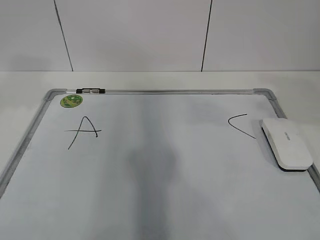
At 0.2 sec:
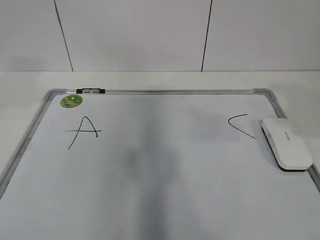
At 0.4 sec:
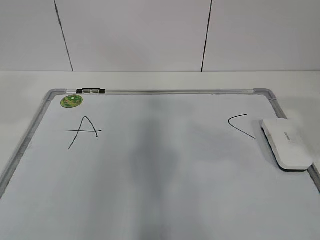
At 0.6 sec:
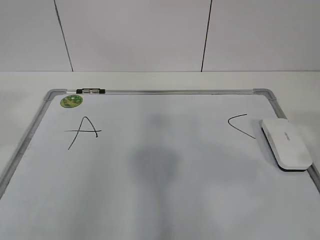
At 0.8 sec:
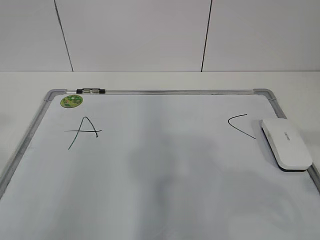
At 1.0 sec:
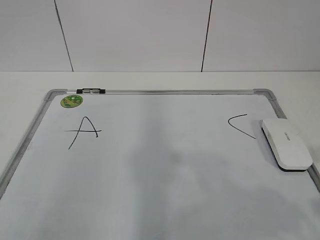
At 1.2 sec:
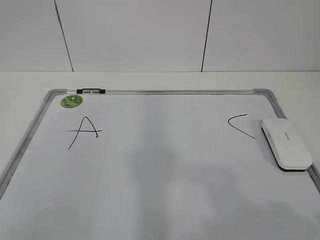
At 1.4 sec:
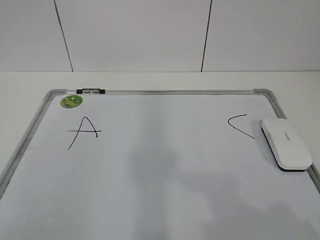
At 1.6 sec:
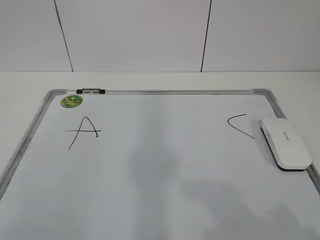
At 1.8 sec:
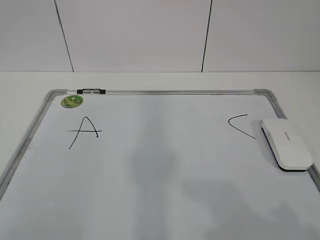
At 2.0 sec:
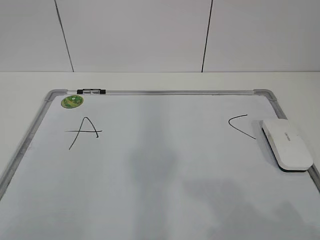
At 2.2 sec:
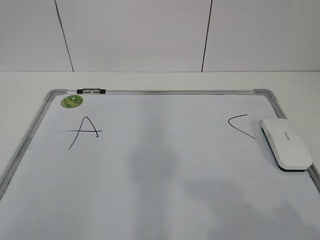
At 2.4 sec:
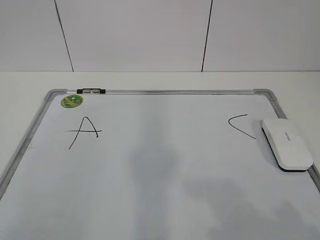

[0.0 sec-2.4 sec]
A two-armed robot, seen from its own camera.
Task of the whole recording: pick up the eraser on the blackboard and erase the letter "B".
0.0 sec to 1.2 sec: The left gripper shifts about 25 cm backward; the right gripper goes some 20 cm backward and downward.

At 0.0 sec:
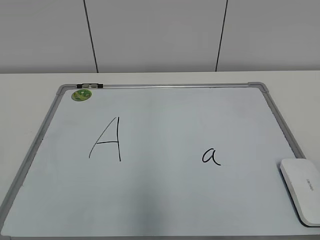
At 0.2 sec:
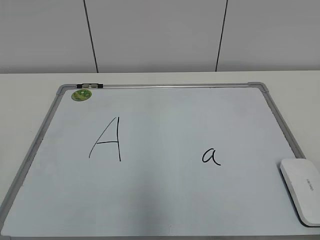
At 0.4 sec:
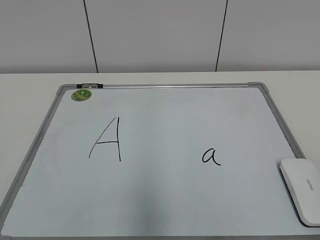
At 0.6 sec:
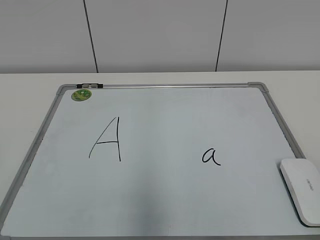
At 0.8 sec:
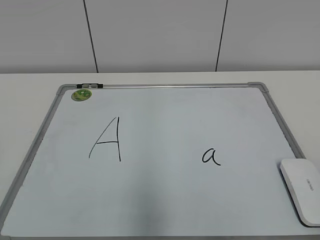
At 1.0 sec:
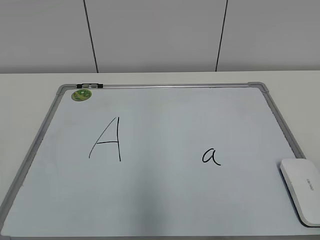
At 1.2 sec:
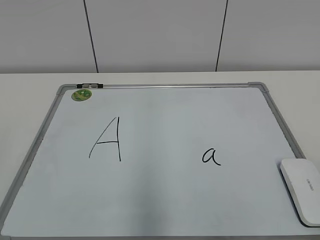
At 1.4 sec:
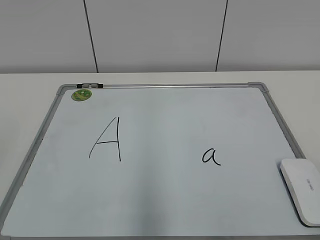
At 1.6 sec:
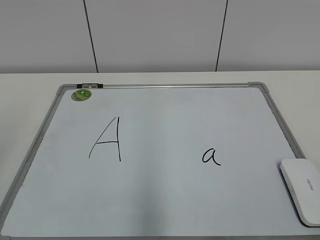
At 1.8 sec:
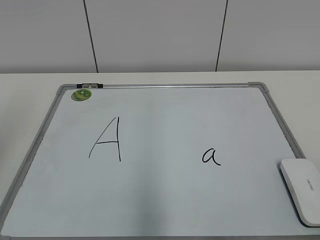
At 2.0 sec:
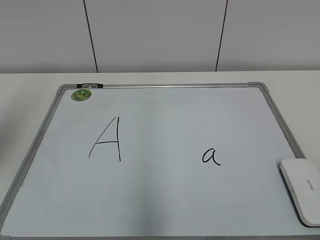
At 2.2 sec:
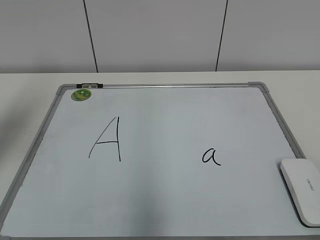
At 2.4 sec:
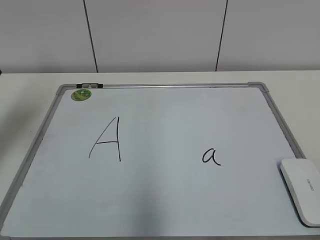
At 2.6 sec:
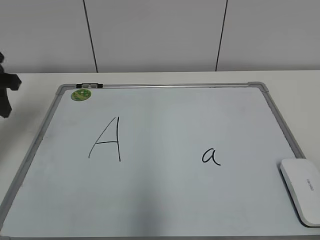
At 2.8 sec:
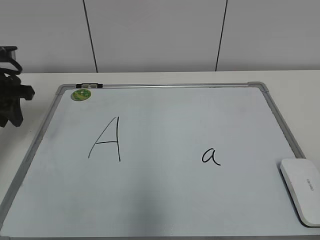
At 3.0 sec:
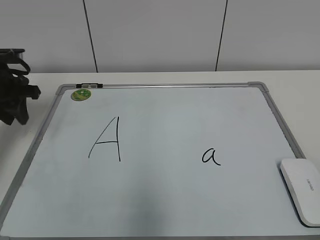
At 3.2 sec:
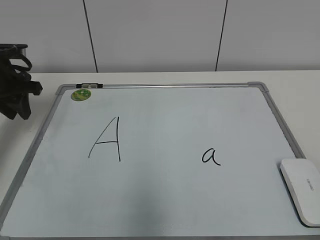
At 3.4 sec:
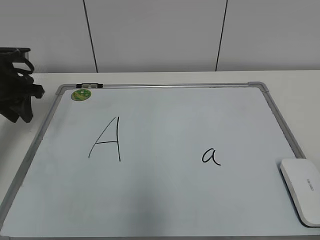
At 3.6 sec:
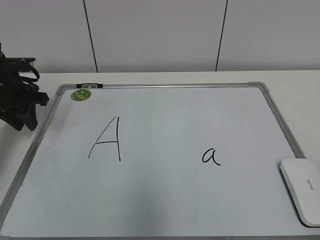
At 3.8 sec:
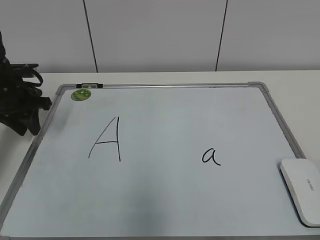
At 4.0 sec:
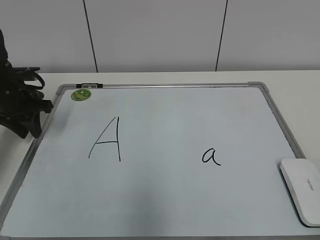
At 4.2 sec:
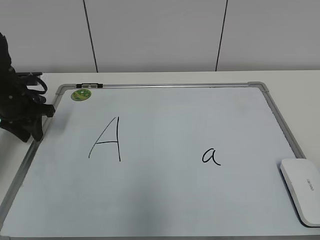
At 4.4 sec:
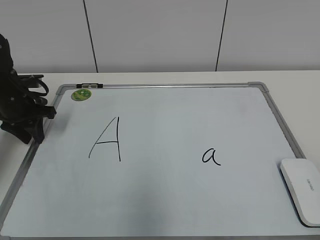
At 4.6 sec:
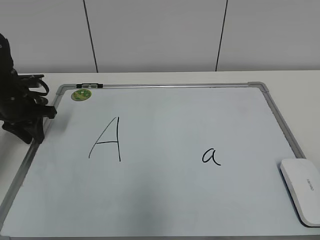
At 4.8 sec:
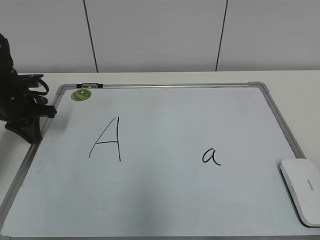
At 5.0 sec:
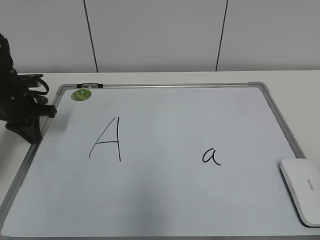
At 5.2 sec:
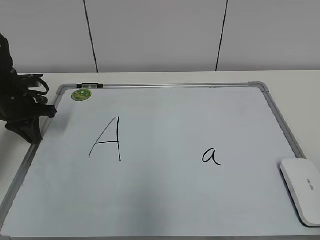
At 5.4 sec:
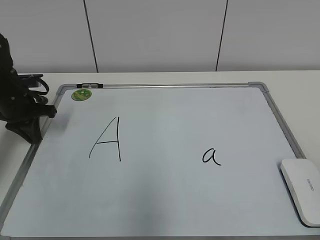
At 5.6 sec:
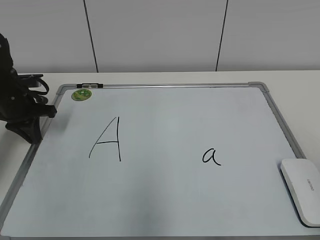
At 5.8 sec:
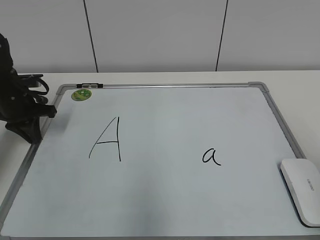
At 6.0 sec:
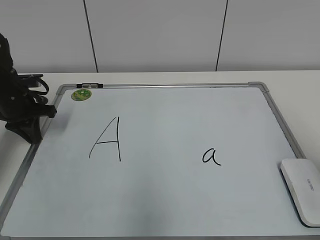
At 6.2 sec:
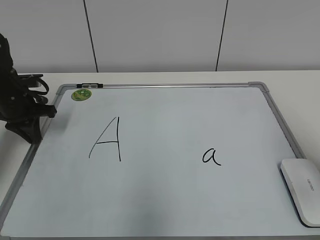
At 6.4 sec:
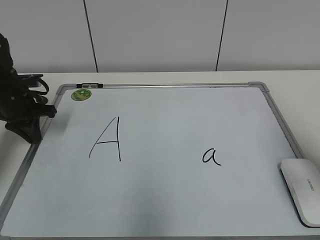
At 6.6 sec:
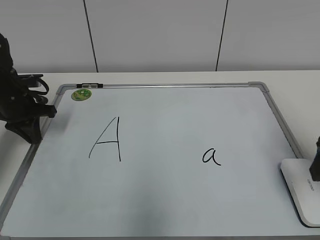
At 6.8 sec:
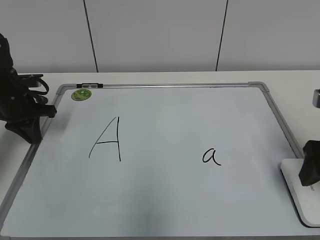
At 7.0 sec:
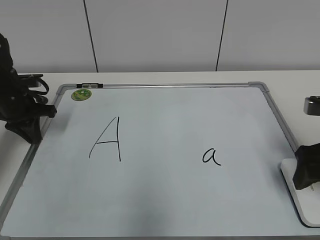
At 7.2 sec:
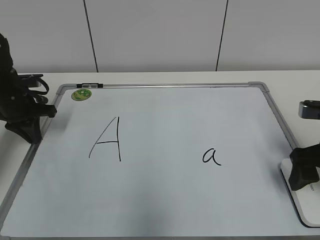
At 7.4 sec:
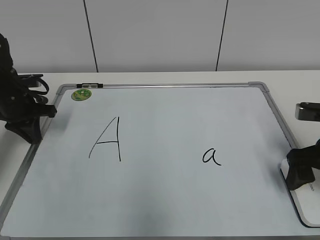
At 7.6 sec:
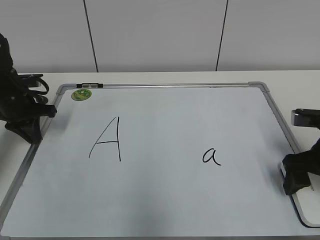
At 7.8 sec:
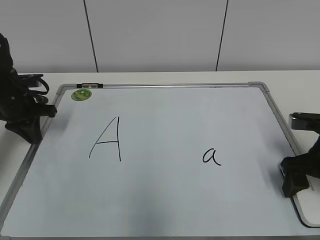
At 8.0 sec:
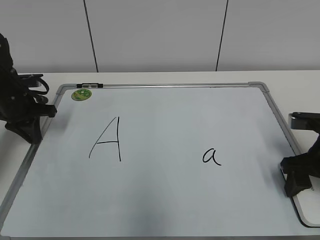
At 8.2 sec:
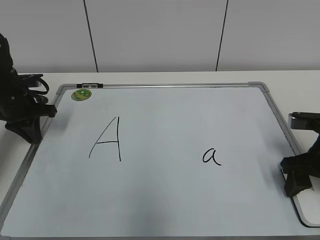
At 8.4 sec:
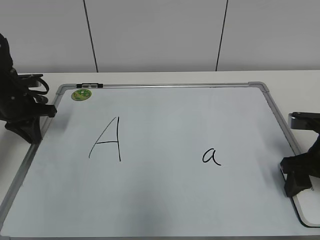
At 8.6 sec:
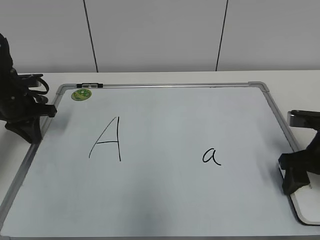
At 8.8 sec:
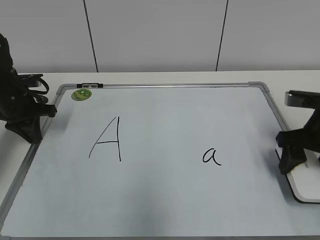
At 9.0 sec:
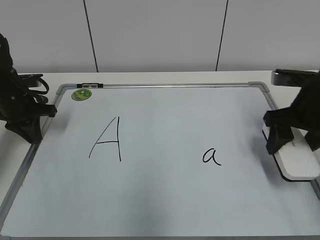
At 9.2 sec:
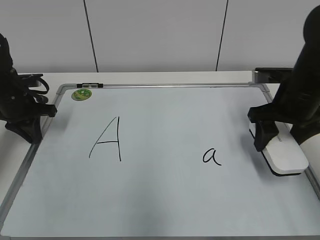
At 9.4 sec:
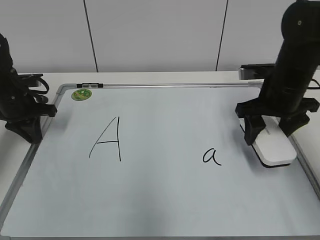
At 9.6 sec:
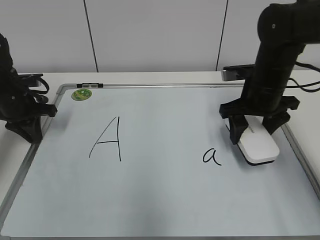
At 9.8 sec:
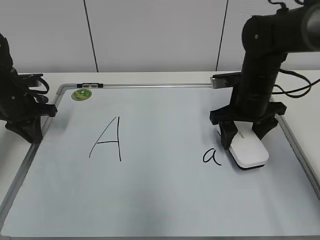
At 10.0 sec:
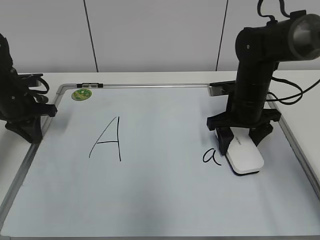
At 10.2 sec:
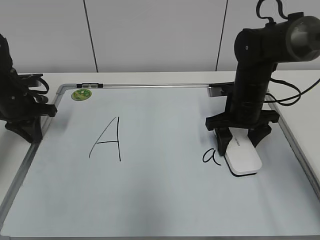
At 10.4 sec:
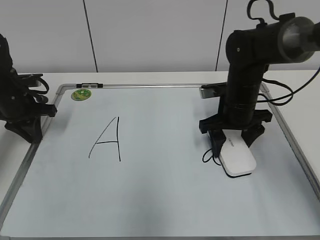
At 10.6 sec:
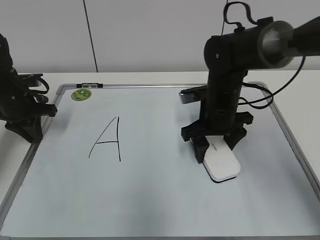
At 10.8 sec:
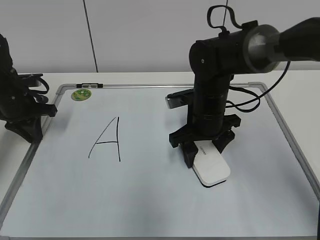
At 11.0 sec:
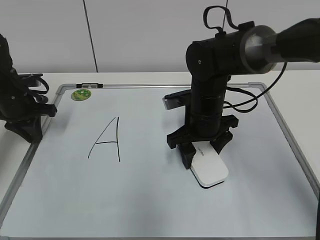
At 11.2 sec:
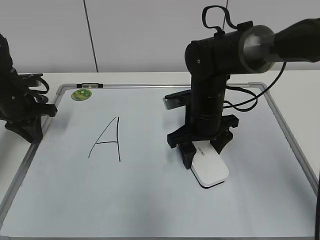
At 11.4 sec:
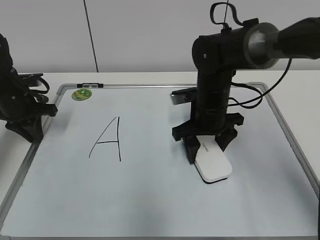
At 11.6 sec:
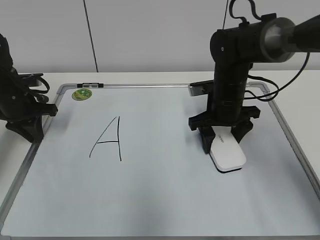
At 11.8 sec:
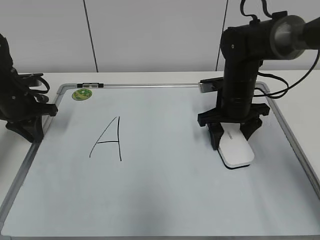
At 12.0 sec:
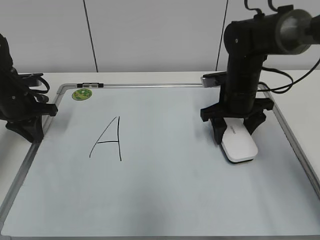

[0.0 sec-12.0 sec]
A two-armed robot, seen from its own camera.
Task of the whole recording: pick up the eraser on the blackboard and erase the letter "a".
Step, 0.0 sec to 4.6 sec: Hold the drawing board steady with your left hand.
Step, 4.8 sec to 7.4 sec: Grab the eraser with your right hand.
Step, 7.6 sec to 11.8 sec: Erase the letter a with your right hand.
1.6 sec to 3.0 sec: The left gripper is displaced forward and downward by approximately 30 cm.
3.0 sec to 4.4 sec: The left gripper shifts about 5 cm downward.
4.4 sec to 6.0 sec: The left gripper closes up.
6.0 sec to 7.6 sec: The right gripper goes some 20 cm forward and downward, and opens.
7.6 sec to 9.0 sec: The right gripper travels forward by approximately 5 cm, and closes up.
9.0 sec to 10.4 sec: The right gripper moves to the left, forward and downward, about 15 cm.
10.4 sec to 12.0 sec: The right gripper reaches some 5 cm to the left, then returns.

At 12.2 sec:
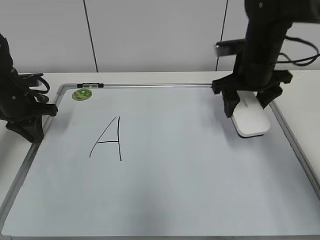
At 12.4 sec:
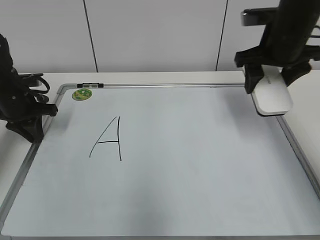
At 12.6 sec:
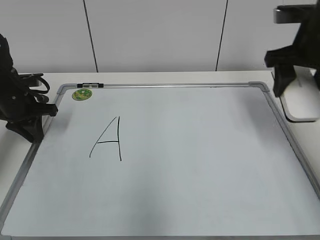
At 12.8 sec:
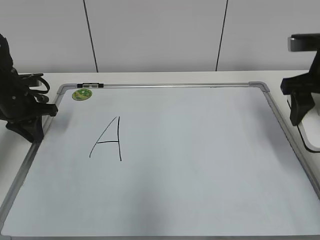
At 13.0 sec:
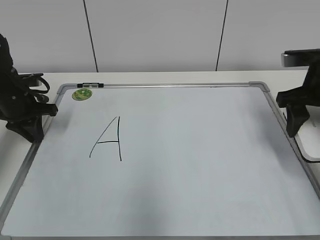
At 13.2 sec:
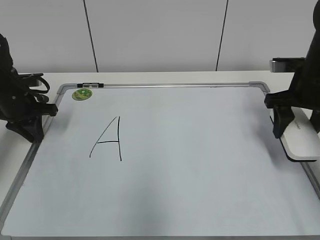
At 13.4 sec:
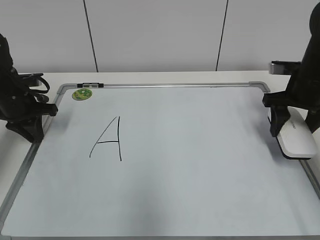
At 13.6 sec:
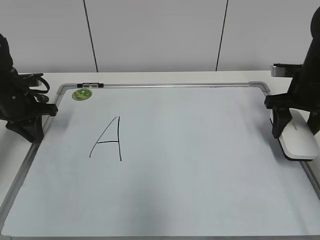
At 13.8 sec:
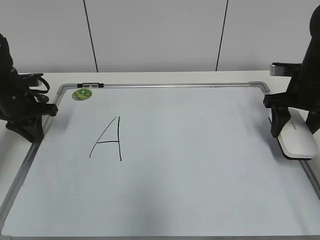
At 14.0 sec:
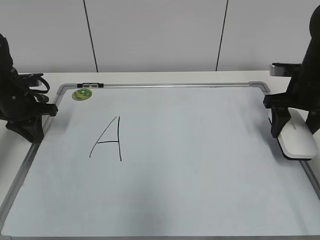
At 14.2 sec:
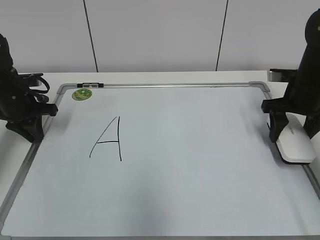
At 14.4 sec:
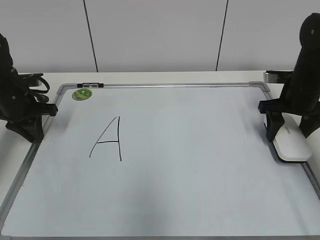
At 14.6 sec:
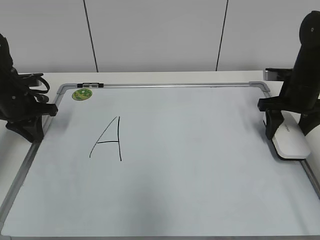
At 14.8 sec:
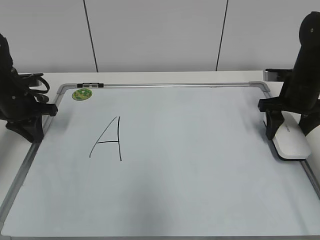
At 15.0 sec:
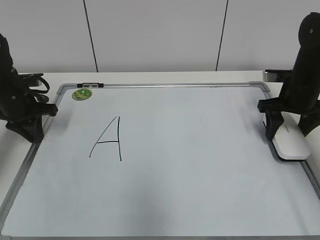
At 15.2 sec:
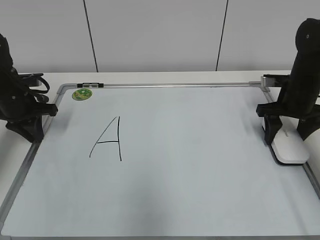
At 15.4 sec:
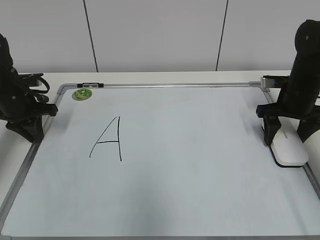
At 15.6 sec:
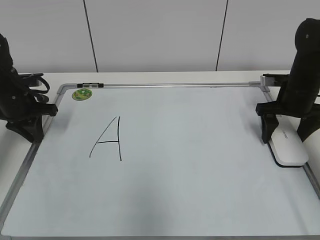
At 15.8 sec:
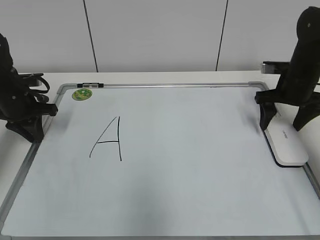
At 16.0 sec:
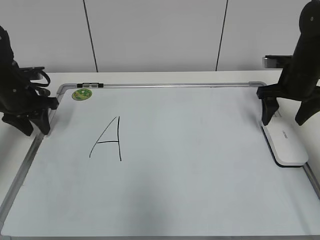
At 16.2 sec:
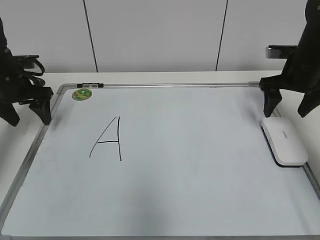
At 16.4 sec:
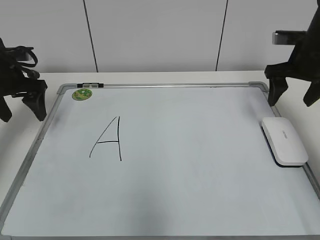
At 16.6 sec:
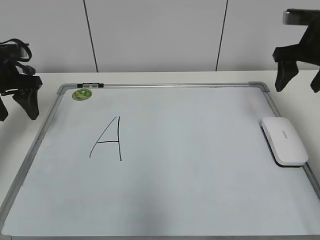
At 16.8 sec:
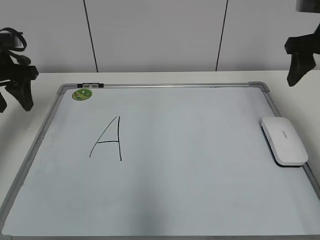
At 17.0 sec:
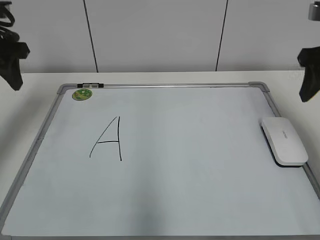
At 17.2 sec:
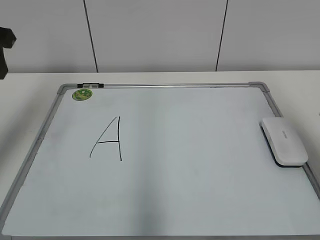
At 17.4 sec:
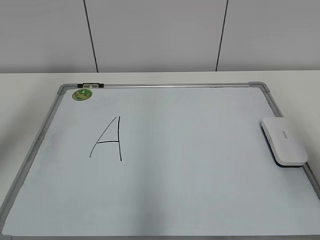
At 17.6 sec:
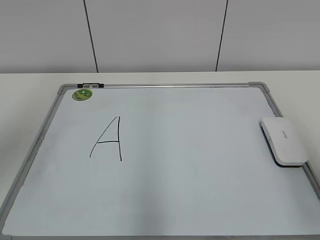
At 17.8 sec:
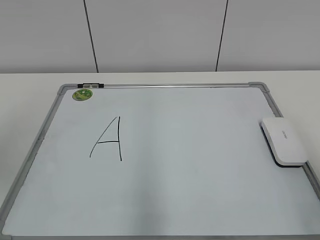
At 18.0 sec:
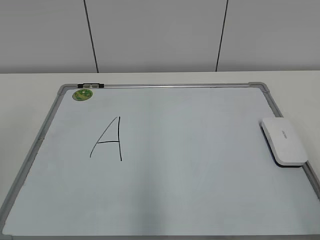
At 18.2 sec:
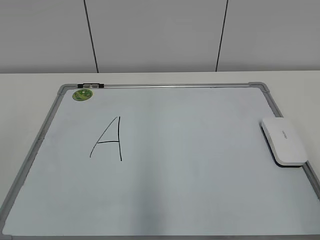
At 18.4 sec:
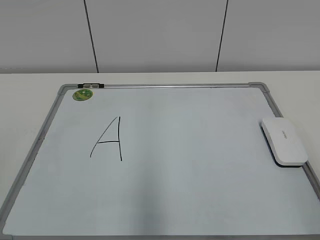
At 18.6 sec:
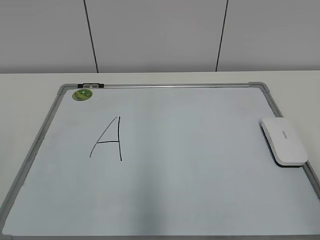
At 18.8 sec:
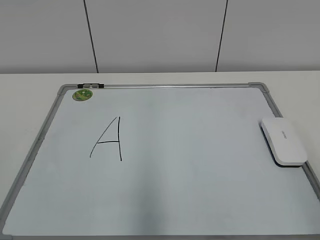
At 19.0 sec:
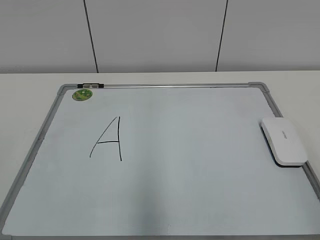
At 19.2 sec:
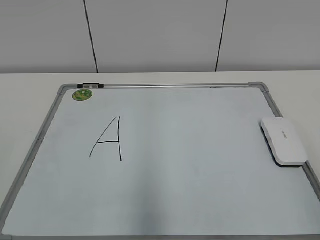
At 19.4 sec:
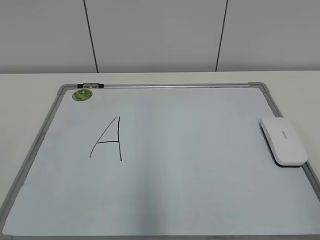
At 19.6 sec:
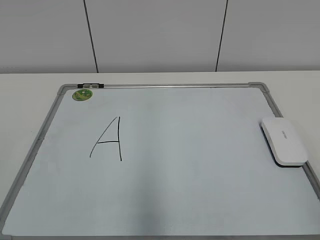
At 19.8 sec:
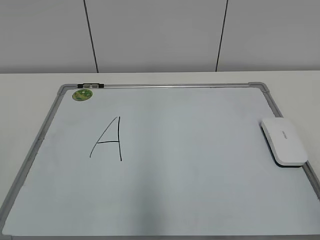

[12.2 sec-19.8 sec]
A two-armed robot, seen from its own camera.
Task of the whole recording: pick up the eraser on the blackboard and erase the letter "a".
Step, 12.2 sec to 15.4 sec: Put down the eraser with your right hand.
12.2 sec to 13.8 sec: The right gripper goes some 10 cm to the right.
13.8 sec to 15.2 sec: There are only small adjustments of the grippers.
15.2 sec to 16.8 sec: Both grippers move upward, approximately 15 cm. The right gripper opens, then closes once more. Meanwhile the left gripper opens.
16.8 sec to 18.2 sec: Both grippers travel together backward, about 35 cm.
